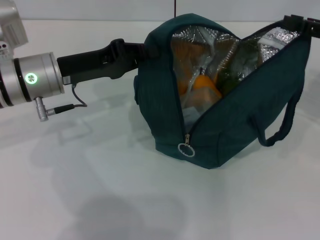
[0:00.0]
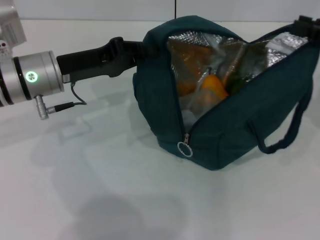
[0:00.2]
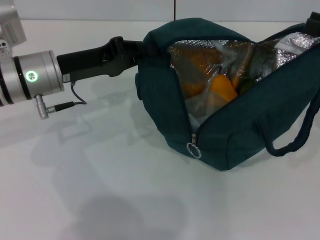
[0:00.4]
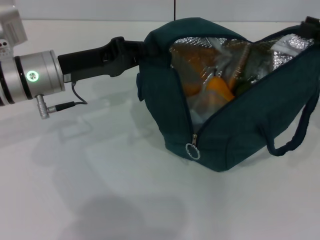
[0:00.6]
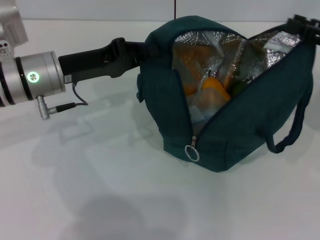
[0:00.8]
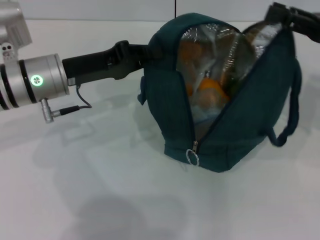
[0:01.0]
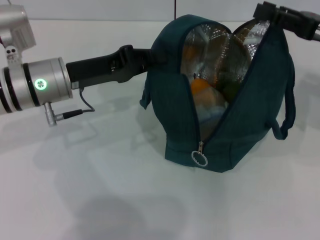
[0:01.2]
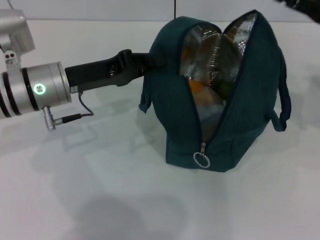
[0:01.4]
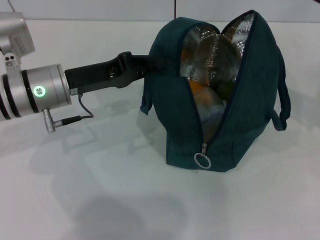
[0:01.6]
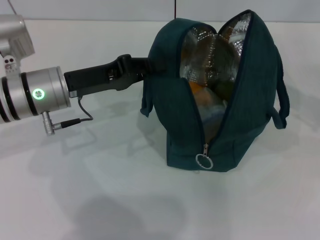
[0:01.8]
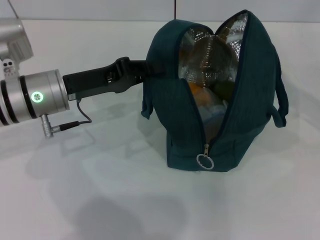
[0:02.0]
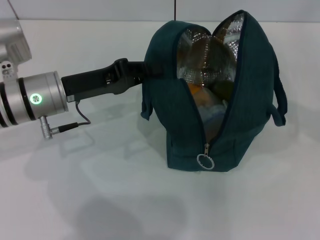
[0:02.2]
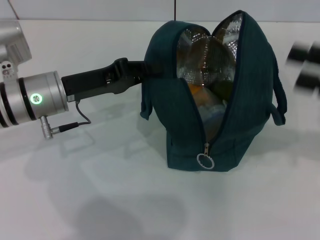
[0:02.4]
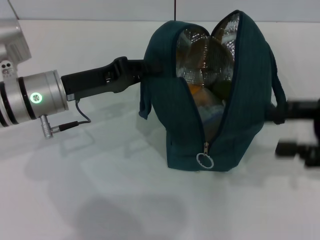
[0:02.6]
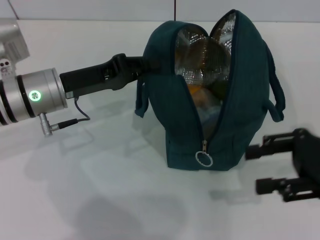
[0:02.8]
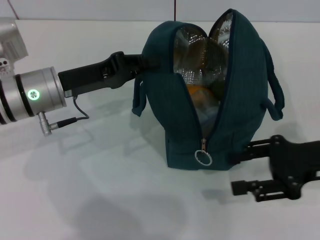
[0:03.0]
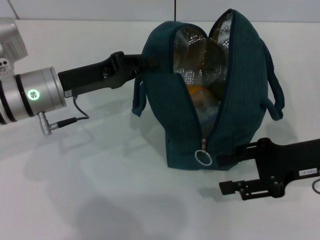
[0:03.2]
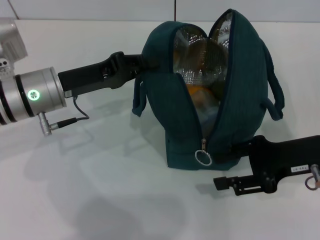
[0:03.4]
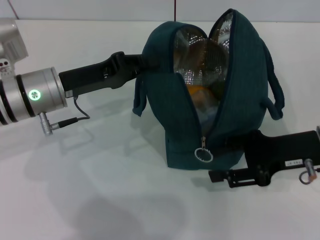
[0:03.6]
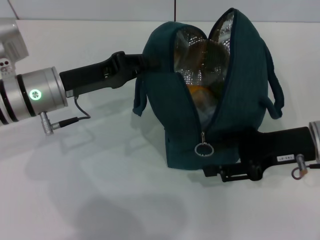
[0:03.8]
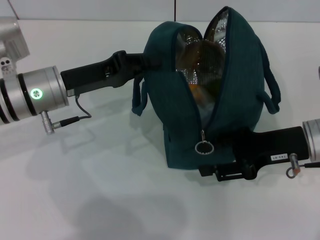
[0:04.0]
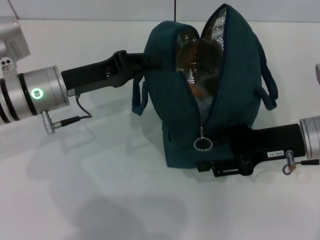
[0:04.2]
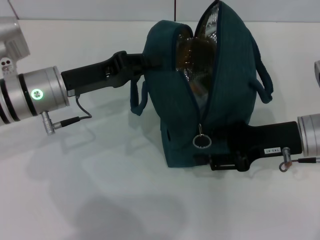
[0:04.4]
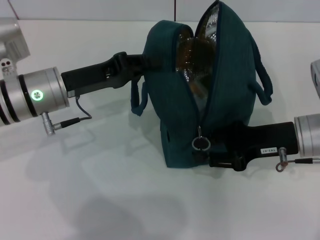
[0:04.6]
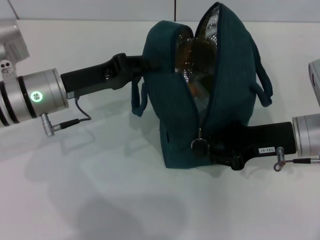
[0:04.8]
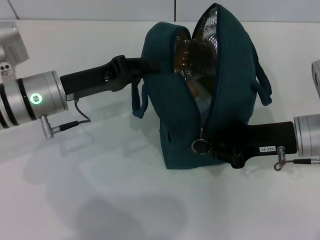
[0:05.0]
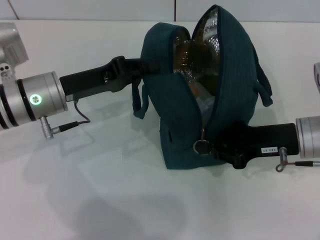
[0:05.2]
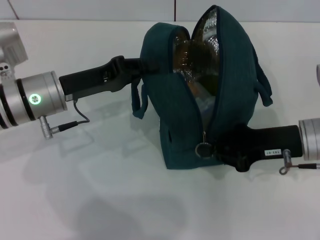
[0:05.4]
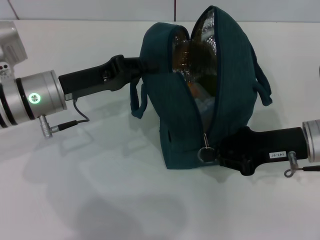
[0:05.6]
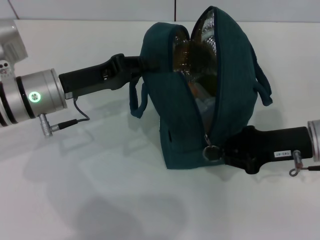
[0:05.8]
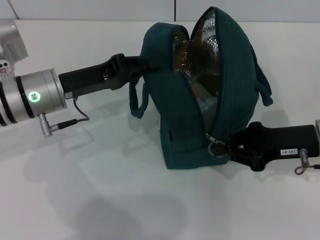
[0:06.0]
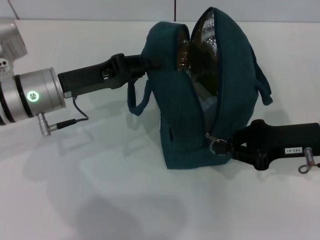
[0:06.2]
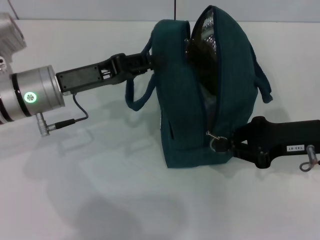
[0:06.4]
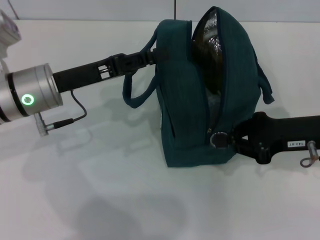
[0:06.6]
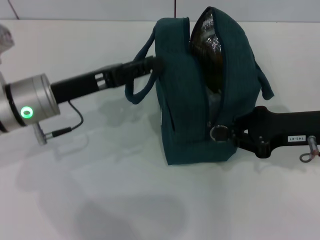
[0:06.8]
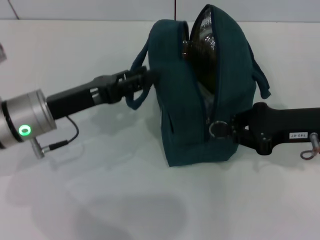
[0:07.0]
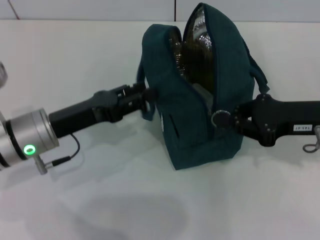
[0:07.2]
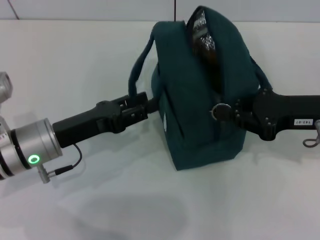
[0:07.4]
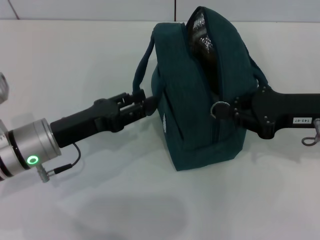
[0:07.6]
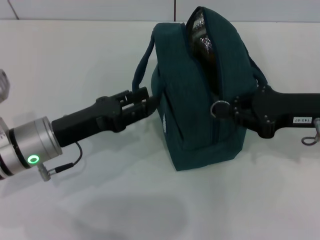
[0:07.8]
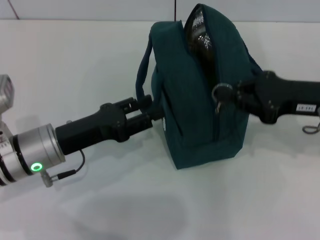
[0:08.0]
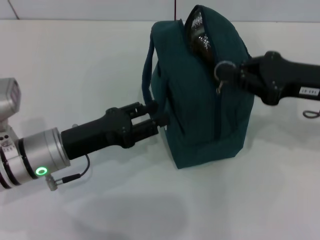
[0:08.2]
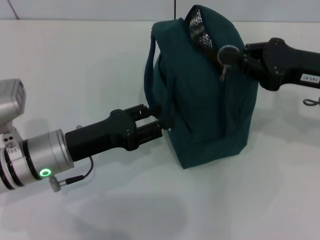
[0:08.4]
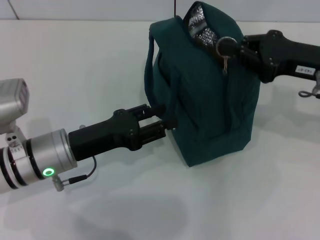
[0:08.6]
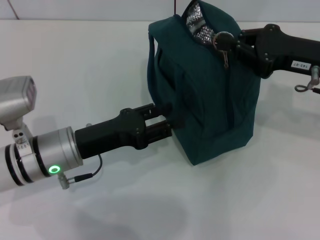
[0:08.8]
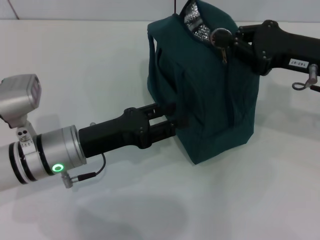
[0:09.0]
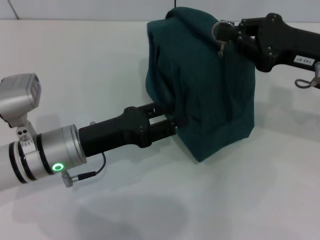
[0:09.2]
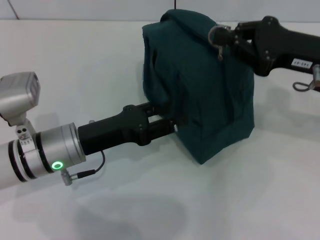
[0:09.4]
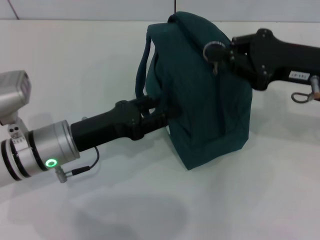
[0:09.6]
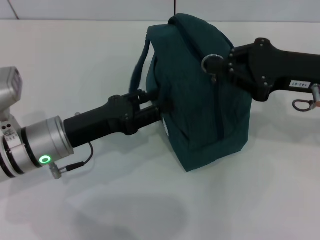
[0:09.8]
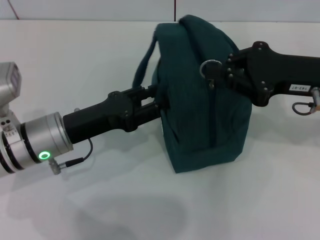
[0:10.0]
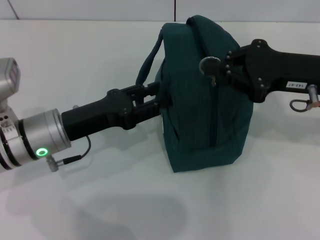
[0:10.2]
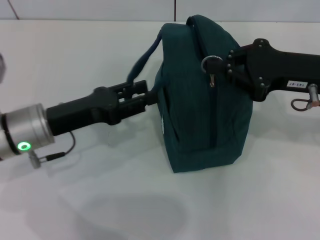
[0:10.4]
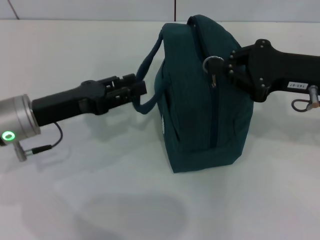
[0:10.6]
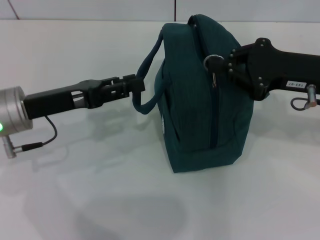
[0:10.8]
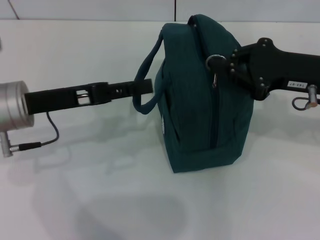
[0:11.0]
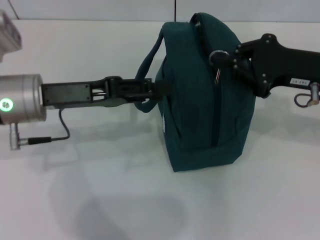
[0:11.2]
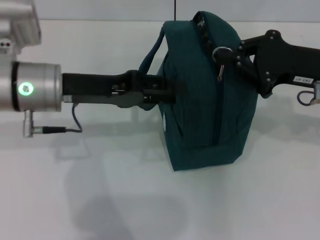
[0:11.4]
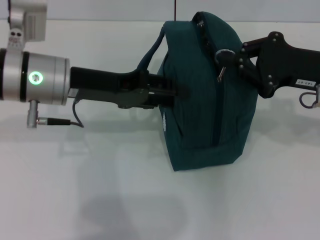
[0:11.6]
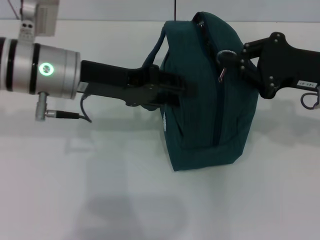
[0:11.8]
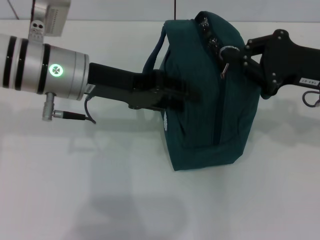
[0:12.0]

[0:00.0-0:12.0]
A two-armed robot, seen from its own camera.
Step, 0:01.4 to 0:10.8: Hold the lunch bag with your left hand.
0:01.6 to 0:03.0: The right gripper is displaced backward and downward by some 10 cm.
0:03.0 to 0:04.4: The right gripper shifts by approximately 5 cm.
0:04.4 to 0:06.0: The right gripper closes.
0:06.0 to 0:07.6: The left gripper travels backward by approximately 5 cm, and opens its fingers.
0:10.4 to 0:12.0: The left gripper heads upward and to the right, covering approximately 10 cm.

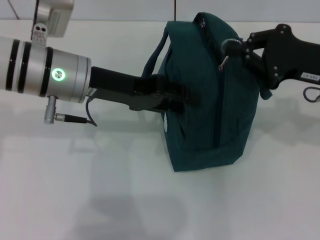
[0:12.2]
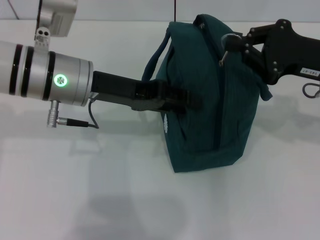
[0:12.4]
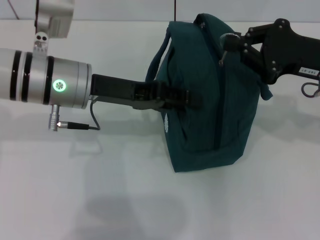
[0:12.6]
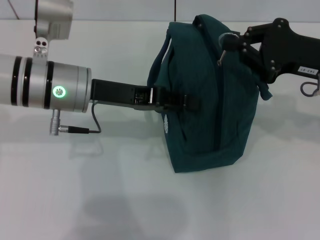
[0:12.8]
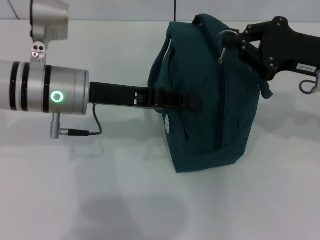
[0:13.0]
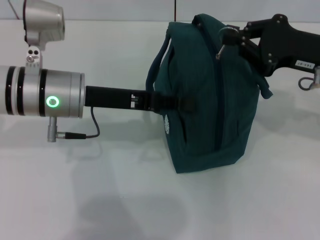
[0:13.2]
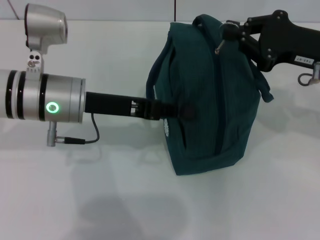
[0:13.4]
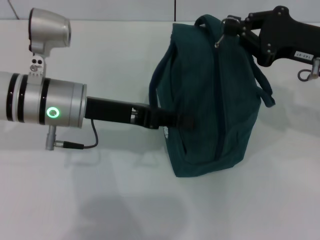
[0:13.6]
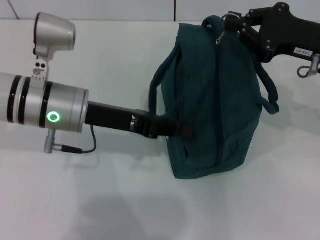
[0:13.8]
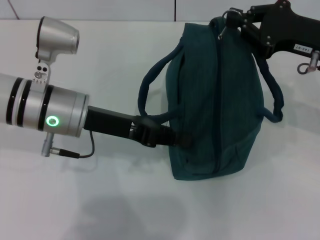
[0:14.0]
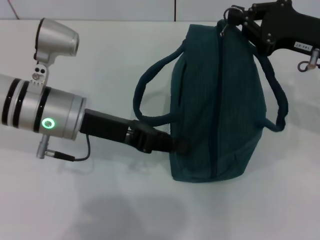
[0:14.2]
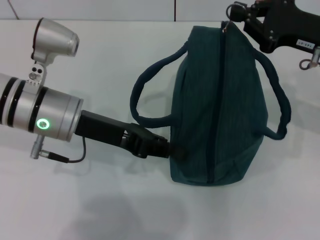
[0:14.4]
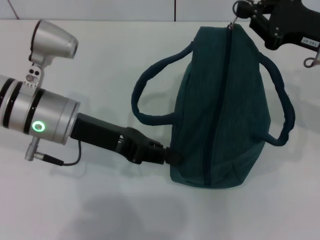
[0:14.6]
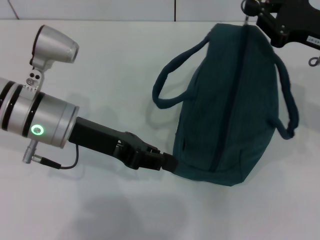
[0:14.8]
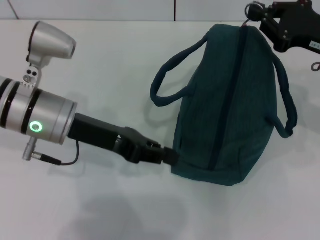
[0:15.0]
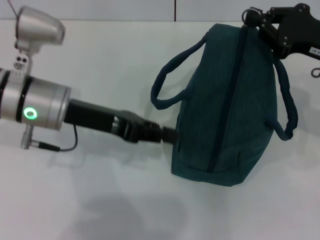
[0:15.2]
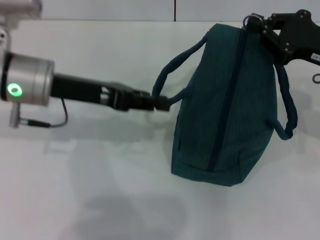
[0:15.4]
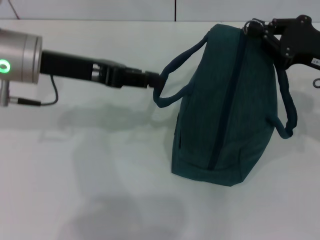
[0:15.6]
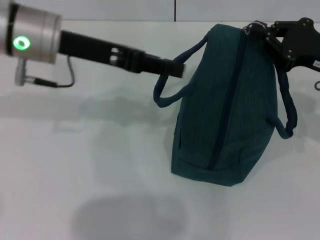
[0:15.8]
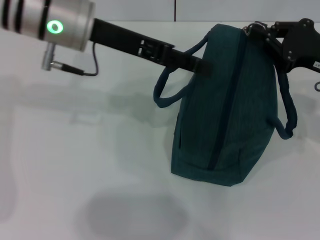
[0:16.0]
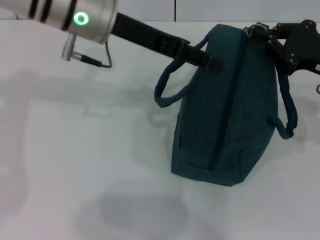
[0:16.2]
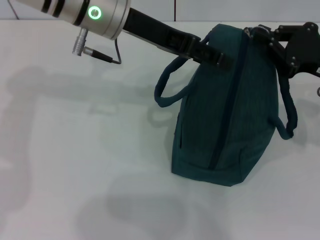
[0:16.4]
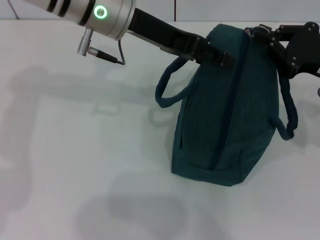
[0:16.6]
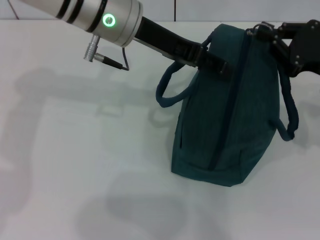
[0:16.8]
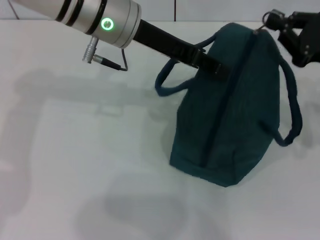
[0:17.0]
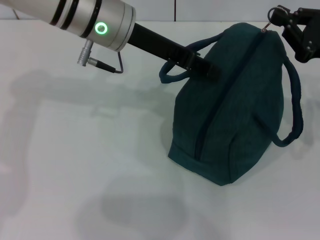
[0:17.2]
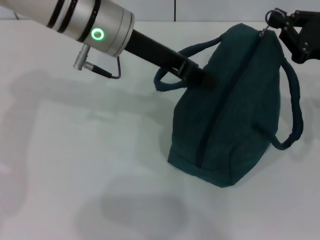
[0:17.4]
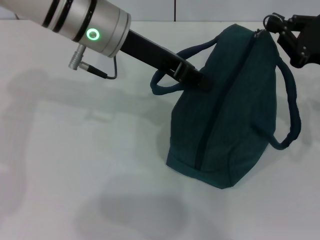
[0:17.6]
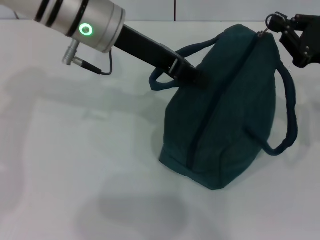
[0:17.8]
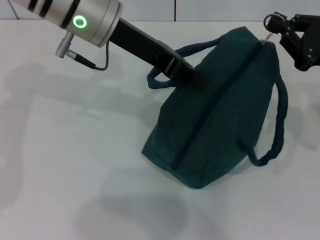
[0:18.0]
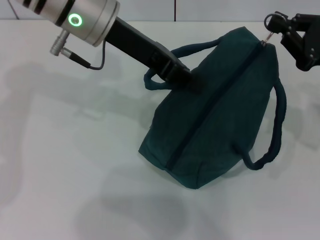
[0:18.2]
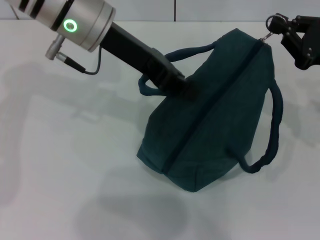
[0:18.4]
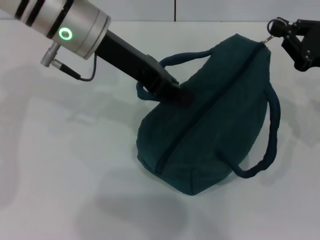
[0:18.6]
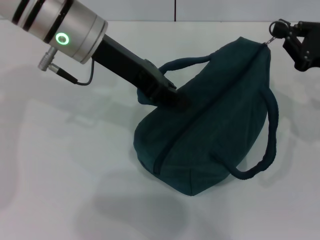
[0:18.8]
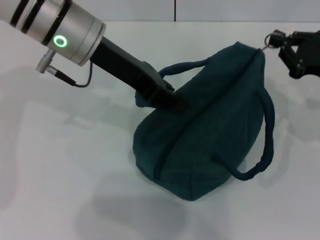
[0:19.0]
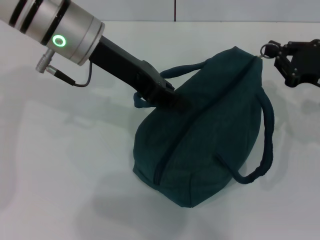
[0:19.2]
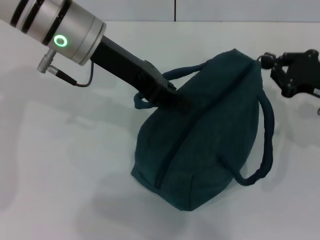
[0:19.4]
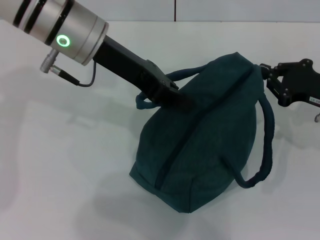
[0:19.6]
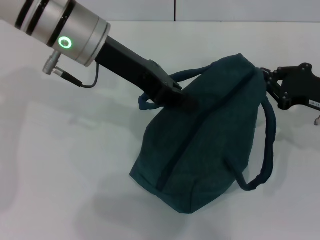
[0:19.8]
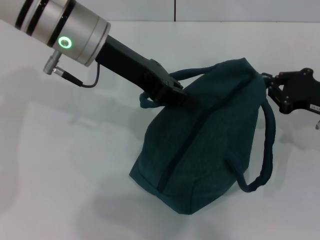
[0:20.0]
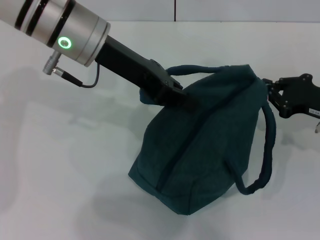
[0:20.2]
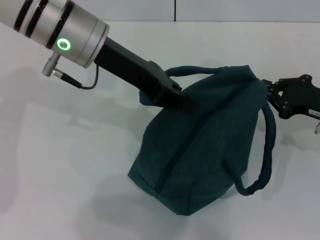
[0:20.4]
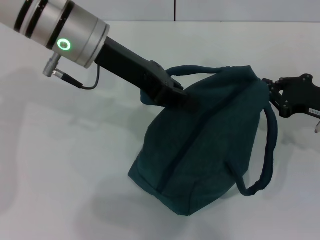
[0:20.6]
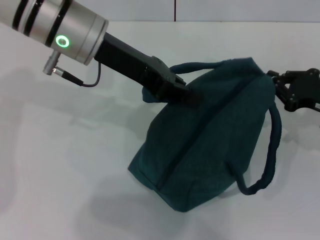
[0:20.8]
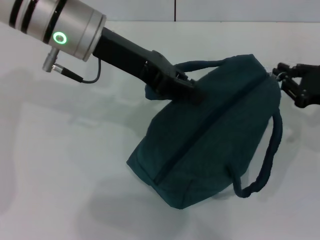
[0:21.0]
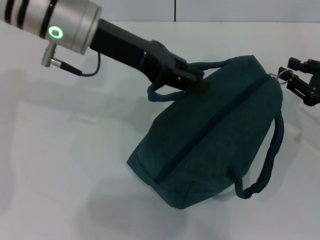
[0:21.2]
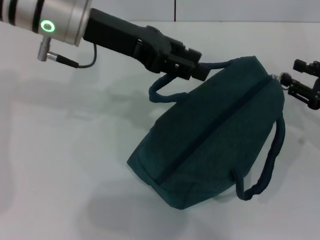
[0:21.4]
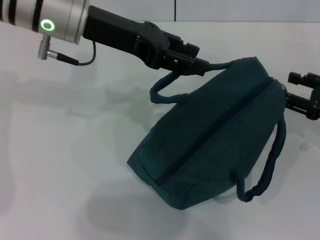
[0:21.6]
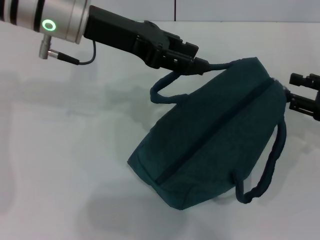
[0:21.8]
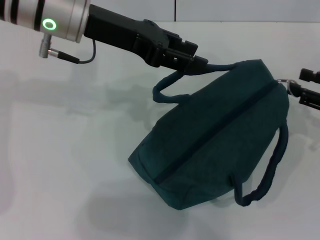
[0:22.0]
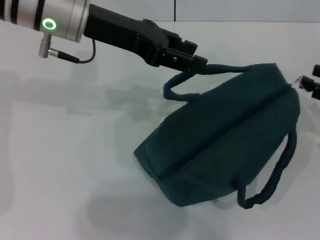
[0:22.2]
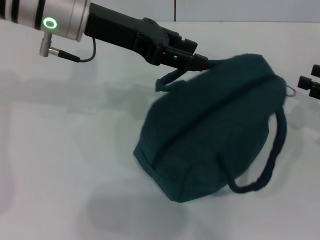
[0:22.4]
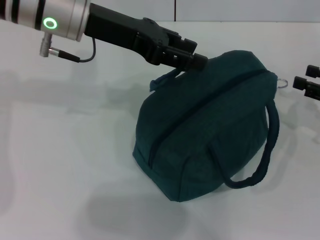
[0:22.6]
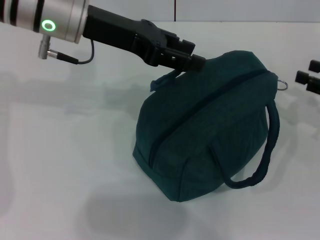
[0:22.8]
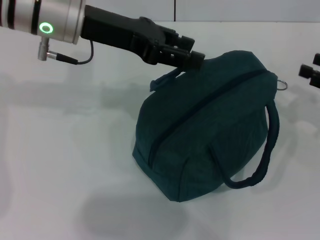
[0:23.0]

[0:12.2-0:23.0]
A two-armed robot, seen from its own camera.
Step, 0:12.2 to 0:21.0: Zip up the lunch bag with your right hand.
Step, 0:21.2 to 0:21.4: Hold the lunch bag with your left hand.
0:12.2 to 0:13.8: The left gripper closes its fingers.
0:15.2 to 0:16.8: The left gripper travels to the right, forward and upward by about 15 cm, and opens up.
0:16.8 to 0:18.4: The left gripper closes its fingers.
0:18.4 to 0:20.0: The right gripper moves downward, some 5 cm.
0:20.0 to 0:21.4: The left gripper opens; the right gripper opens up.
0:21.4 to 0:23.0: There are only small adjustments of the grippers.
